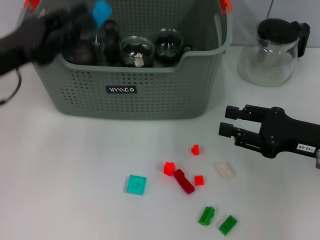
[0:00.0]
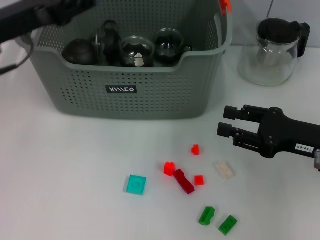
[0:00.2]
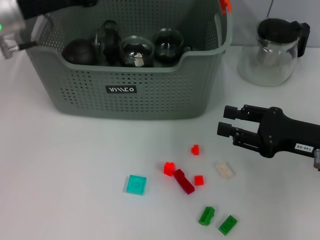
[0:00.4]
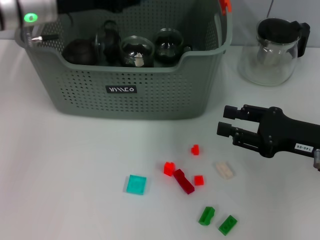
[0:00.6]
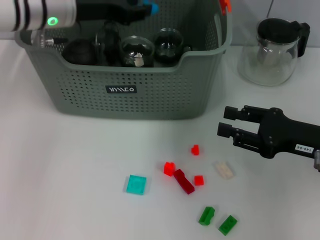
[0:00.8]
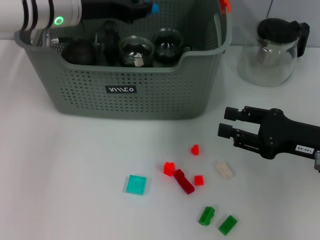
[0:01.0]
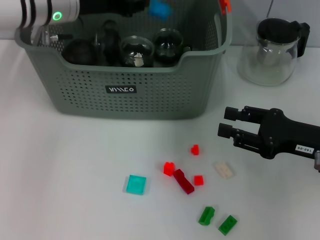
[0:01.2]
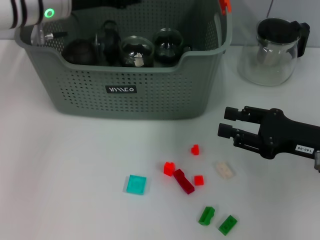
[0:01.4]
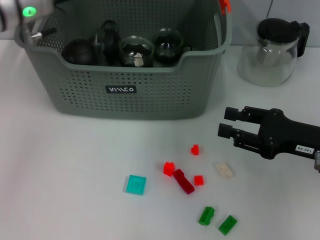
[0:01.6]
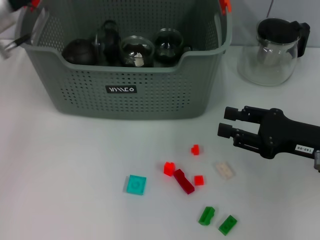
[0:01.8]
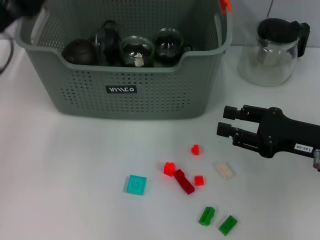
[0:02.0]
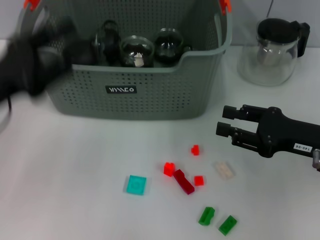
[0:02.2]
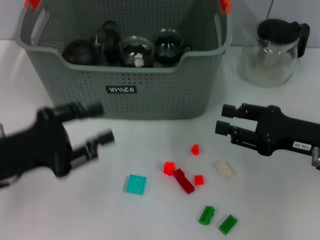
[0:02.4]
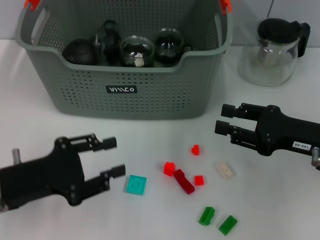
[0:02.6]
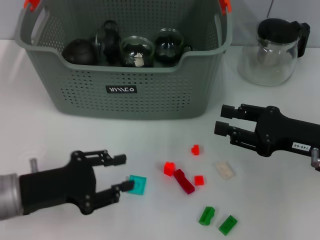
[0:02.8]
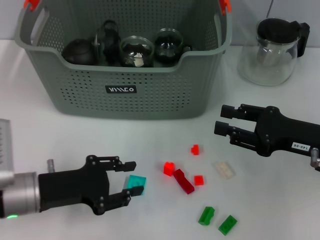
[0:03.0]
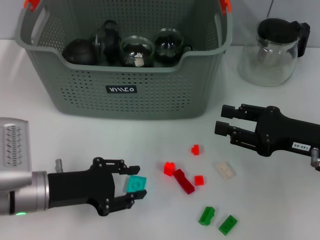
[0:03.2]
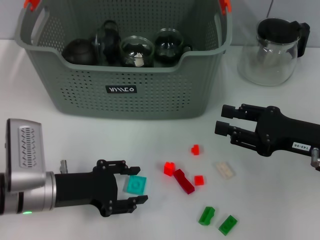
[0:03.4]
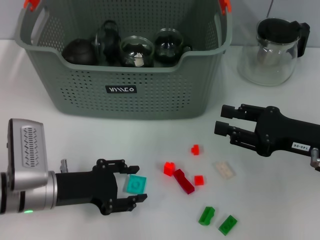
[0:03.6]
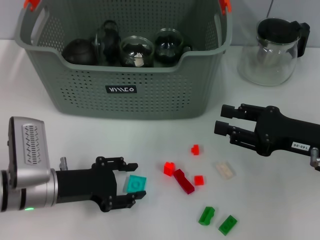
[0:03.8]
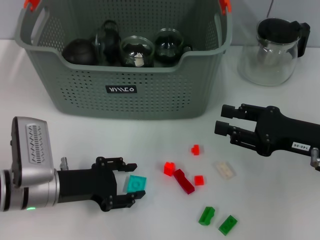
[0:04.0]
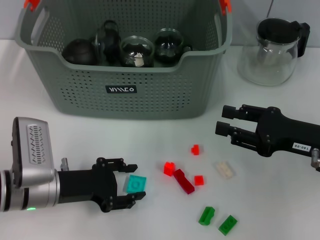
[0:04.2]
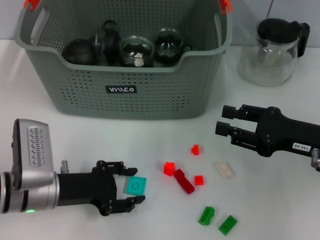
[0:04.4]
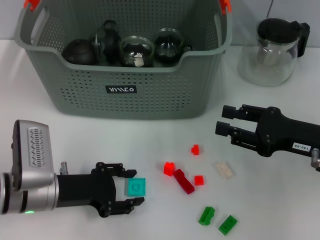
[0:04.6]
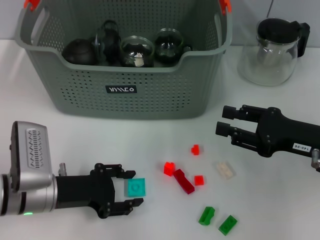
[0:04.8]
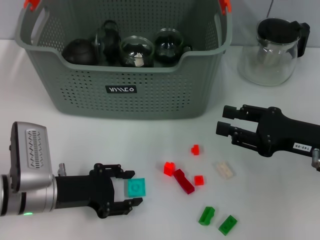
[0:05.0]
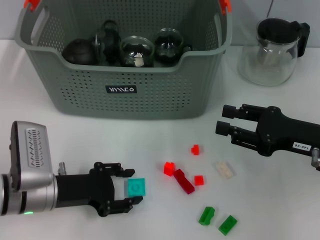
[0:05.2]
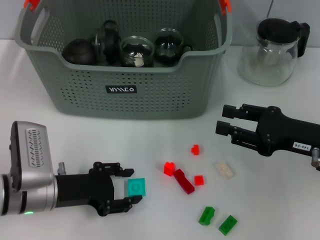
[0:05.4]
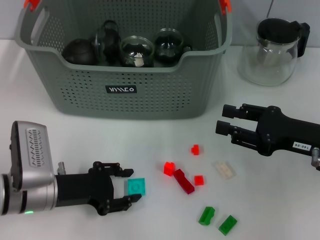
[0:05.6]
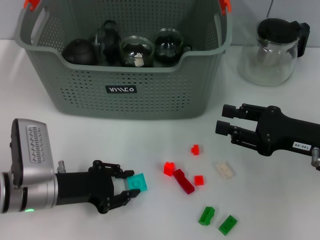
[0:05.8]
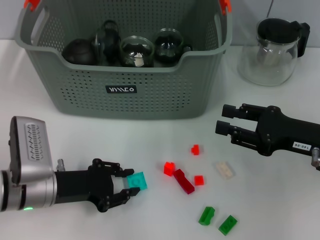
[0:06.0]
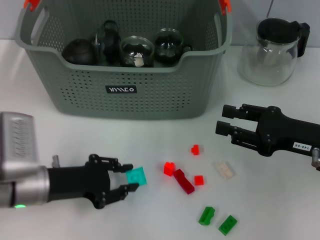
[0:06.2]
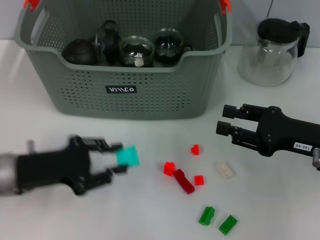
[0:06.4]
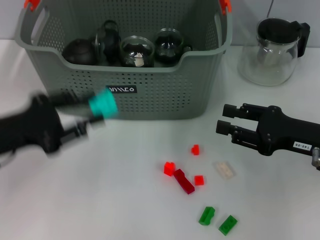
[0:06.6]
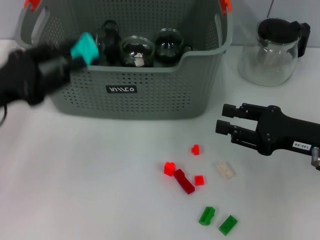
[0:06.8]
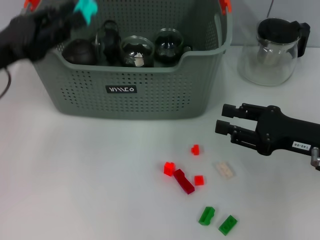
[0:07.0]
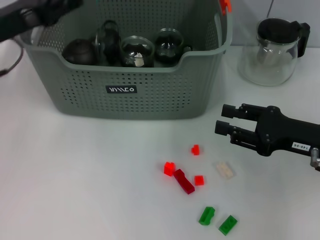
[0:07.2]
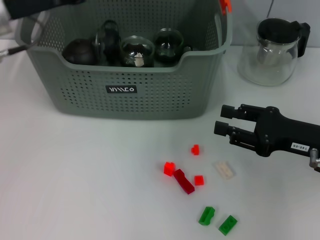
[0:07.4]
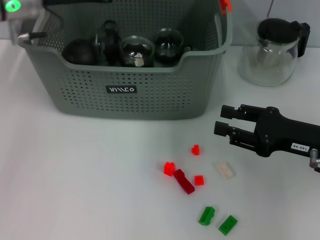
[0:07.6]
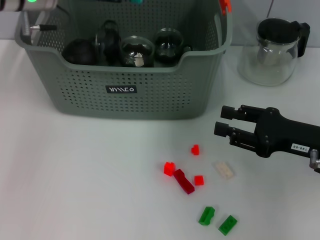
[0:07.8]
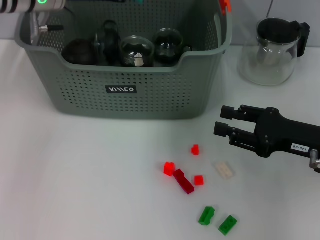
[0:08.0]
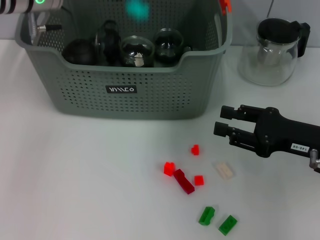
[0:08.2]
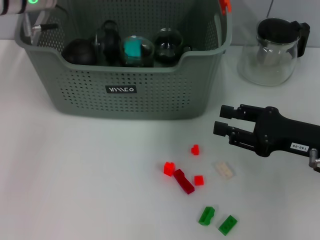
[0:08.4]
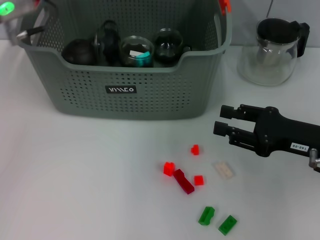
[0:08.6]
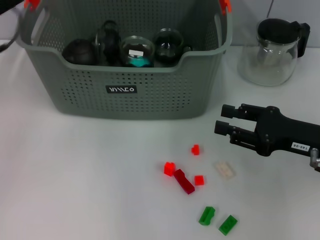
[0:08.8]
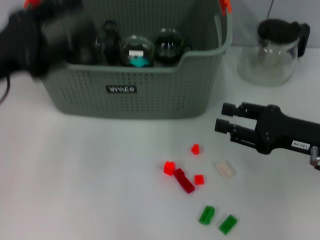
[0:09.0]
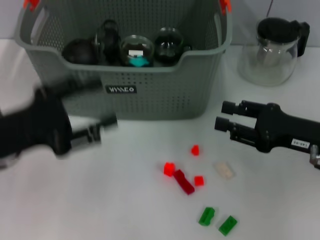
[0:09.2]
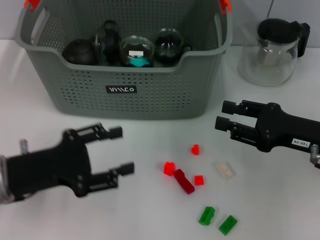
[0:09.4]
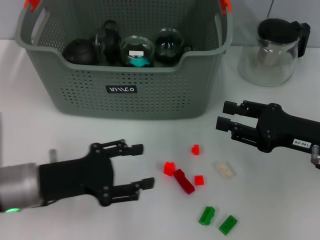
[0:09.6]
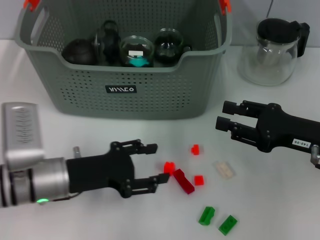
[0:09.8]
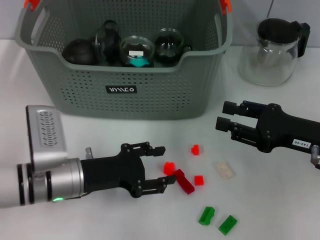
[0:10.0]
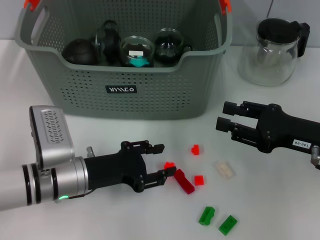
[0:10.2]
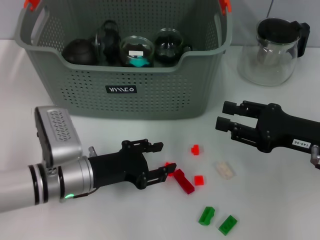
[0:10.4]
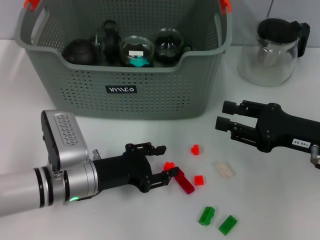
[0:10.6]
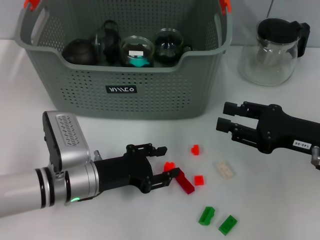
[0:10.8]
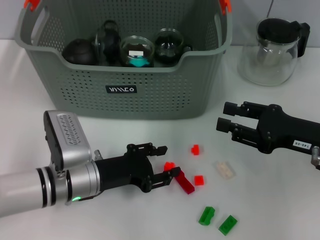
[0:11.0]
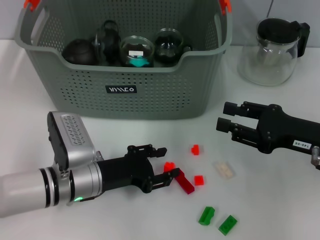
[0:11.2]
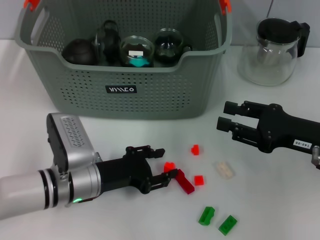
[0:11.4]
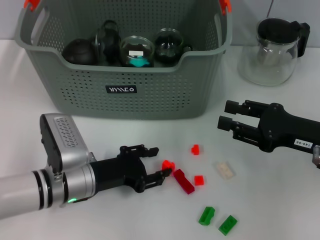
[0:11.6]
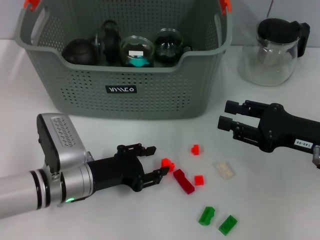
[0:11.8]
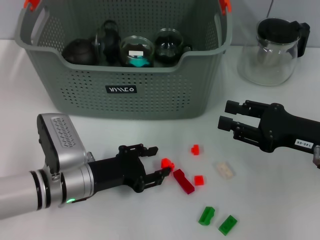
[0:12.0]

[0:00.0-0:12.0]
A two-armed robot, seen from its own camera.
Task of the whole recording: pick up the teacup on the table and place it into the storage bin, pick up the block on the table and place it into the storage bin.
Step, 0.0 to 1.4 s: Place the dark blue block in the storage box with left gripper.
Step, 1.6 to 5.8 s: Grasp the light blue block with left gripper.
Step, 6.0 to 8.4 s: Place the light blue block in the storage box with left gripper.
0.0 to 1.6 s: The left gripper moves forward and to the right, some 15 cm.
1.6 to 3.0 s: The left gripper moves backward and downward, roughly 25 cm.
3.0 to 4.4 s: The grippers make only small movements.
4.4 to 6.0 s: The two grippers keep their place.
6.0 to 7.6 s: The left gripper shifts about 25 cm upward and forward.
7.6 to 9.0 s: The left gripper heads backward and to the left, covering approximately 15 cm.
9.0 to 10.4 s: The left gripper travels downward and to the right by some 20 cm.
10.4 to 12.0 s: The grippers make only small movements.

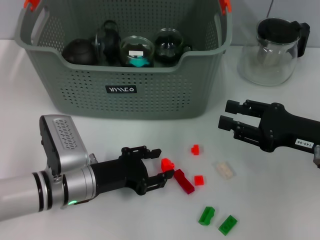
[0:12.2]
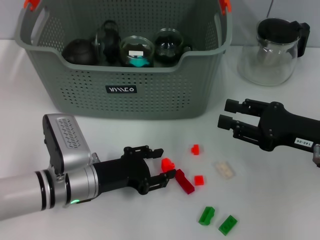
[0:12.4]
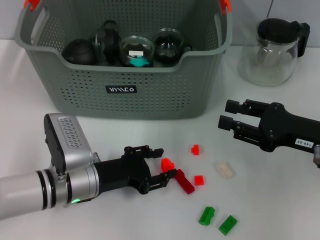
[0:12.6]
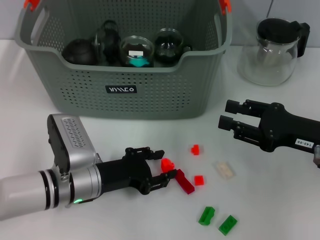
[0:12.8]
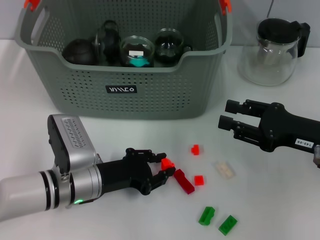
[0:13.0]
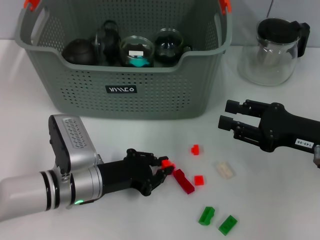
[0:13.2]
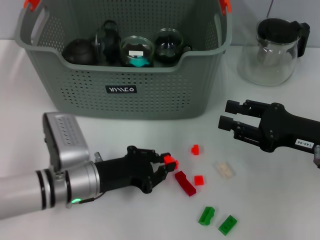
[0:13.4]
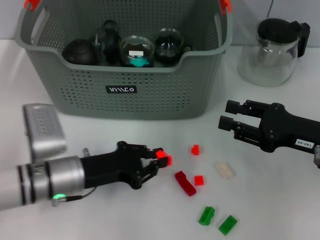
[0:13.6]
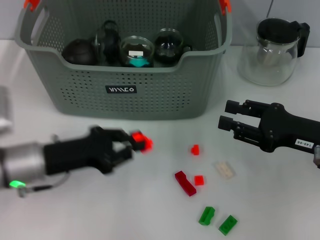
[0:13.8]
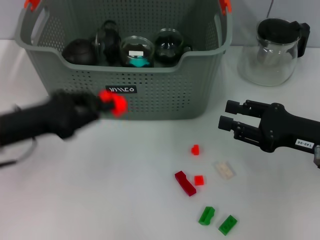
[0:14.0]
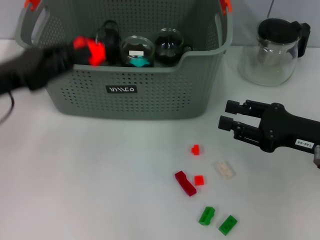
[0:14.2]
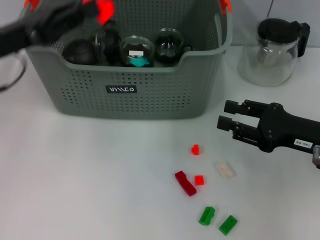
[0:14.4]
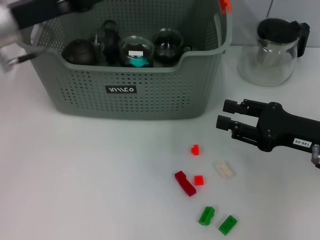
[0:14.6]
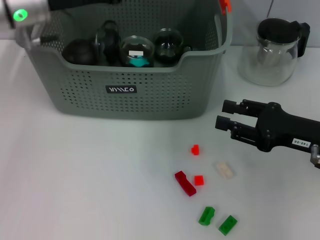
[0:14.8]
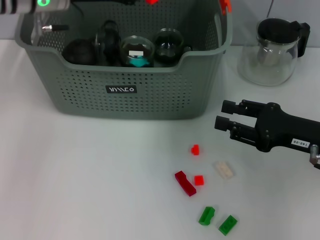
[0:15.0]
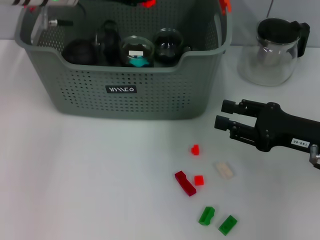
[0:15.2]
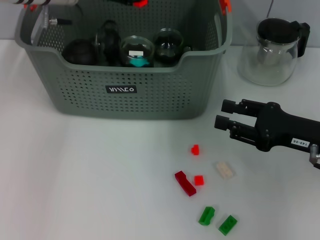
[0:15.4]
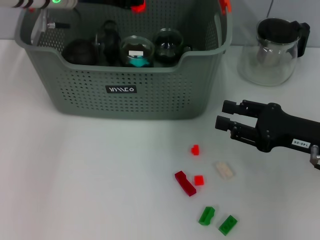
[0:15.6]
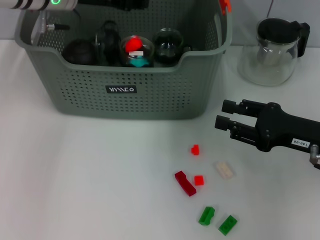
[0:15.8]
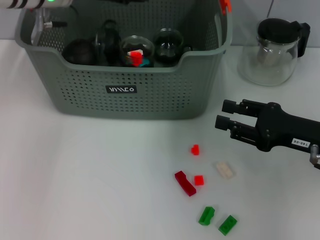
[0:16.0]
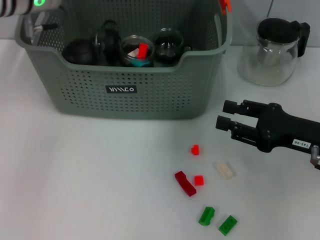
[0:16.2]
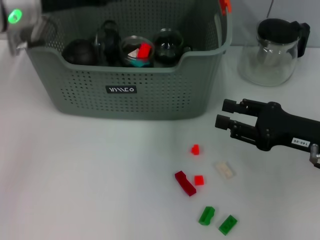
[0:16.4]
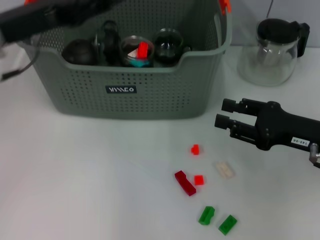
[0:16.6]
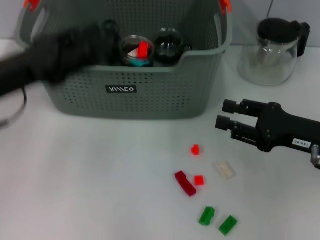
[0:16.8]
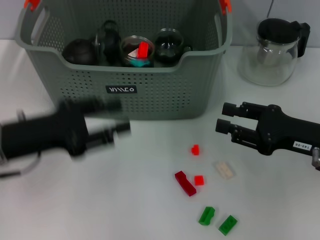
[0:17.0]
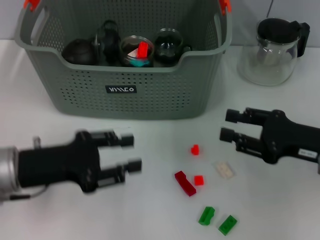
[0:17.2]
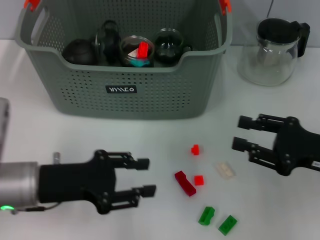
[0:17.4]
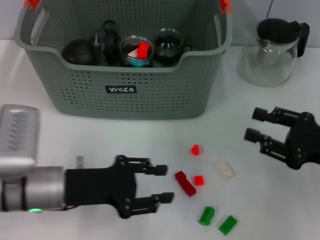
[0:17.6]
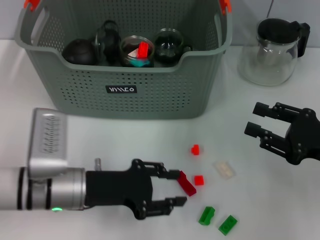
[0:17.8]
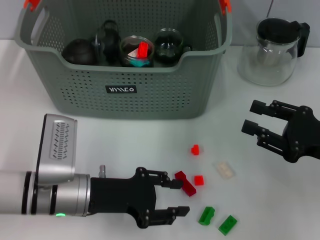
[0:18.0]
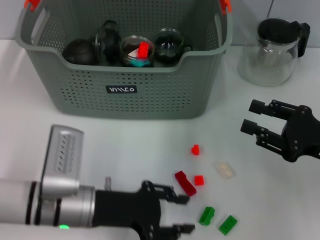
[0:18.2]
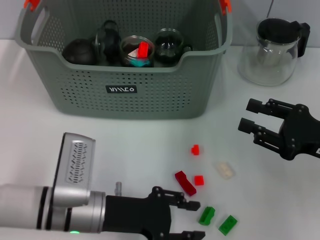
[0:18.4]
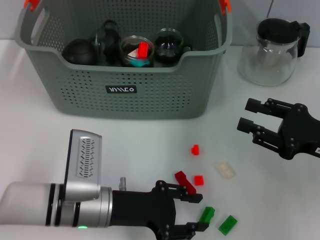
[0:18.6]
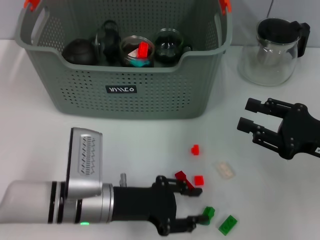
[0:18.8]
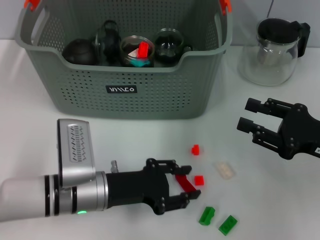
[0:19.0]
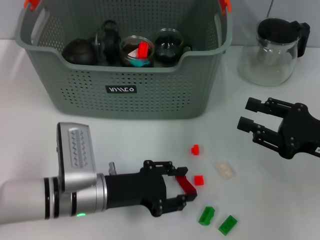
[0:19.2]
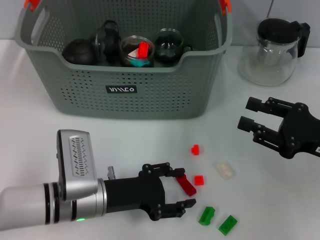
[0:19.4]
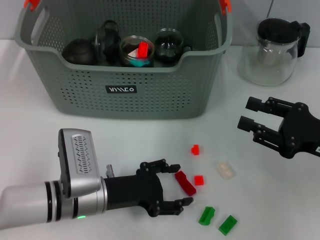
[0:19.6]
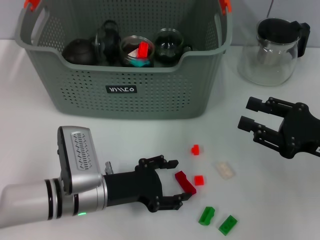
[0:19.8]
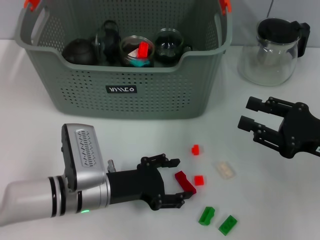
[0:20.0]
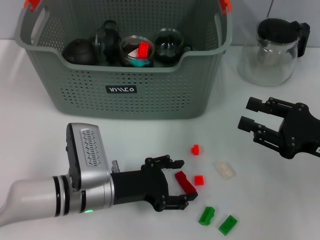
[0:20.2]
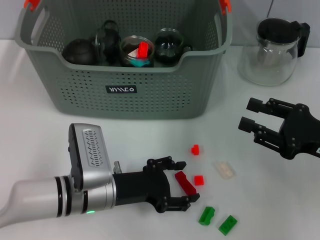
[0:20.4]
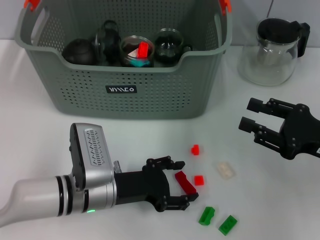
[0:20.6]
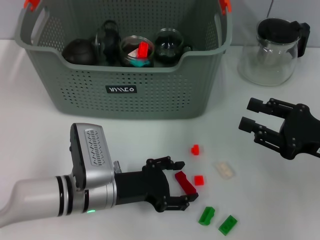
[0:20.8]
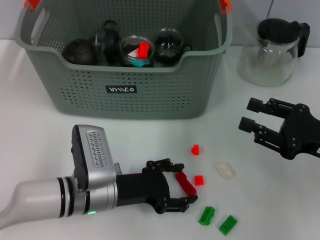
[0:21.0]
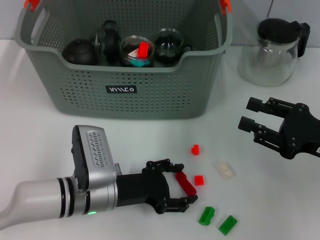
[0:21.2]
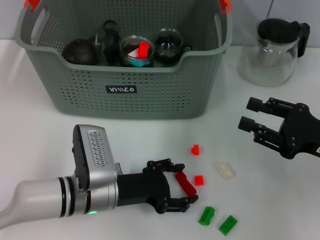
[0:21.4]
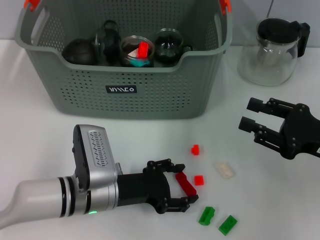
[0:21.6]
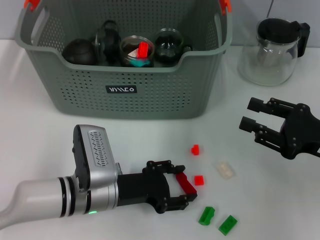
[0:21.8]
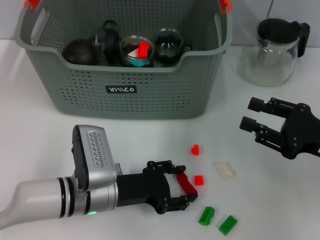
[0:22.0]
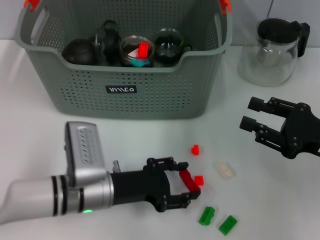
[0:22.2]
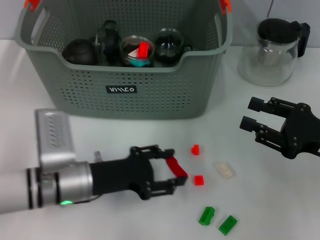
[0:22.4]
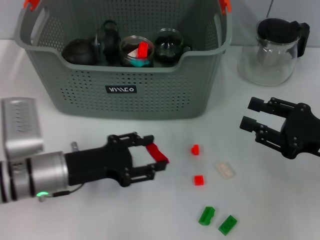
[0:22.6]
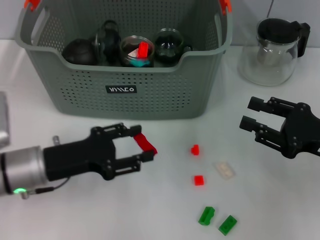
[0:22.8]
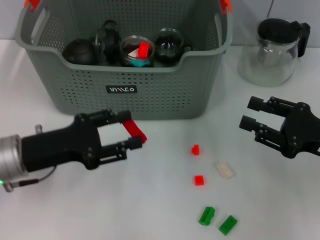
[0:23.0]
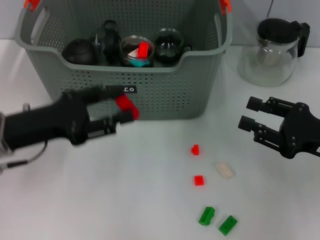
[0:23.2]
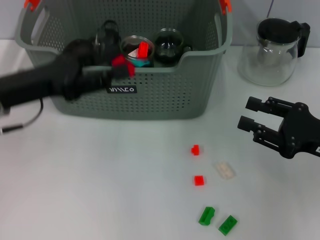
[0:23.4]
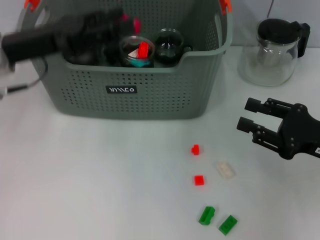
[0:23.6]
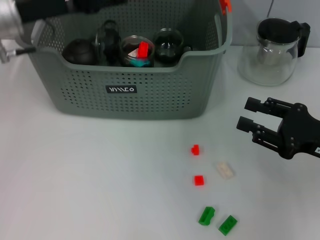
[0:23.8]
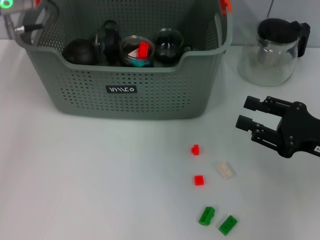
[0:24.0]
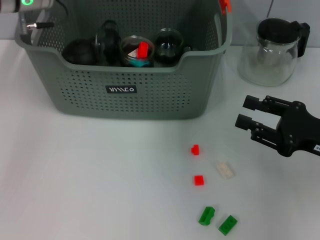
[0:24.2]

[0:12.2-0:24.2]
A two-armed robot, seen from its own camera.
Task of the whole recording: pick up the teacup on the table and place it into the storage bin, pick up the block on the table and place it into the storage bin.
Step, 13.4 to 15.8 s: Place the orange block in the storage box with left gripper.
Step, 16.0 to 21.8 s: Grasp the red block with left gripper.
12.2 to 13.8 s: The left gripper travels upward and to the left by roughly 5 cm, and closes its fingers.
13.8 to 15.2 s: The left gripper is displaced forward and upward by approximately 25 cm.
15.2 to 16.6 s: The left gripper travels backward and to the left by some 15 cm, and opens its fingers.
16.6 to 18.2 s: The left gripper is displaced downward, backward and to the right by about 20 cm.
18.2 to 21.2 s: There are only small adjustments of the grippers.
21.2 to 22.6 s: The left gripper moves to the left, some 5 cm.
22.6 to 24.2 s: The left gripper is displaced upward and forward by roughly 25 cm.
